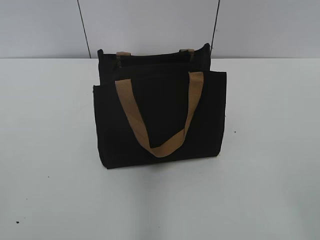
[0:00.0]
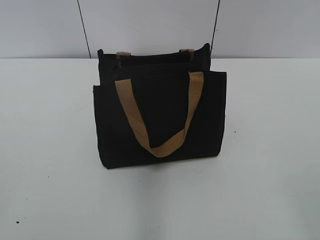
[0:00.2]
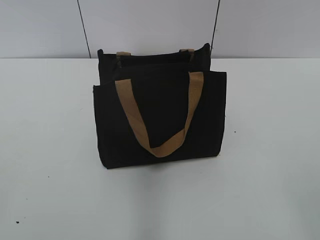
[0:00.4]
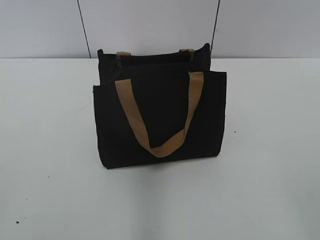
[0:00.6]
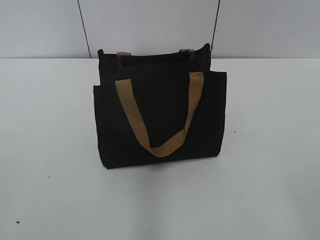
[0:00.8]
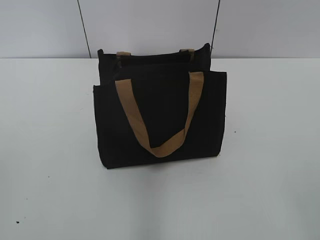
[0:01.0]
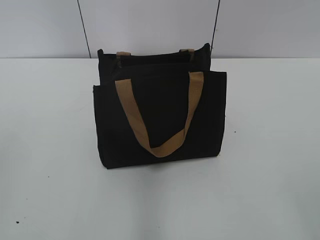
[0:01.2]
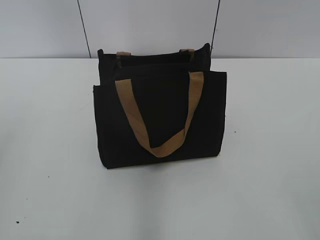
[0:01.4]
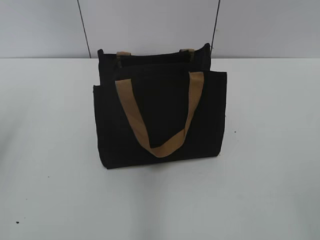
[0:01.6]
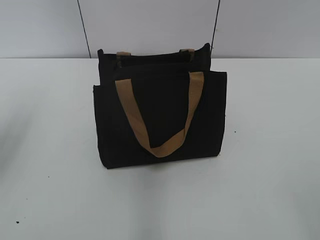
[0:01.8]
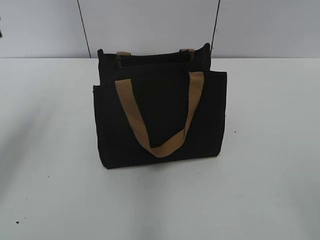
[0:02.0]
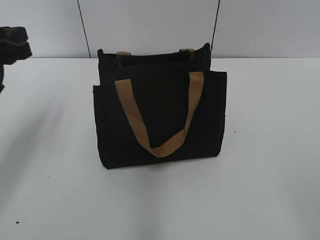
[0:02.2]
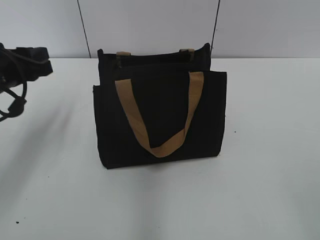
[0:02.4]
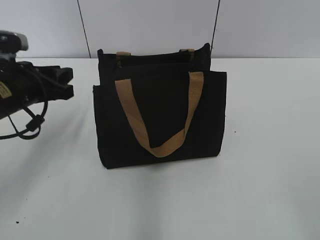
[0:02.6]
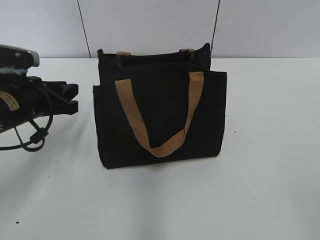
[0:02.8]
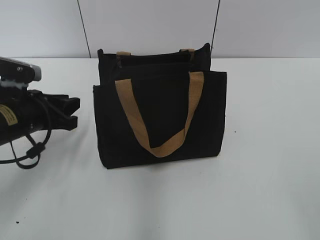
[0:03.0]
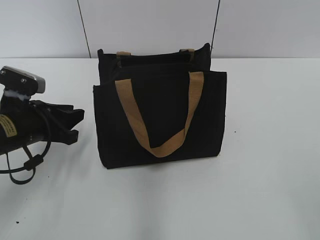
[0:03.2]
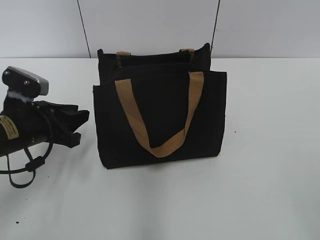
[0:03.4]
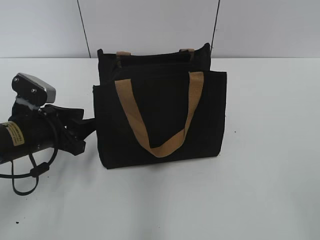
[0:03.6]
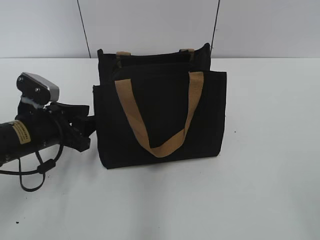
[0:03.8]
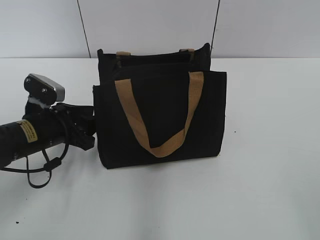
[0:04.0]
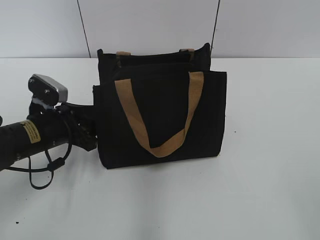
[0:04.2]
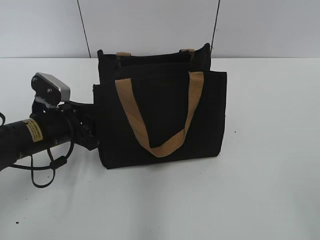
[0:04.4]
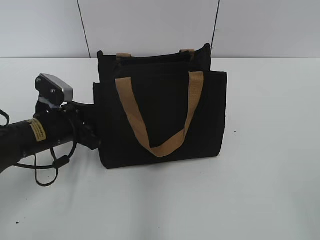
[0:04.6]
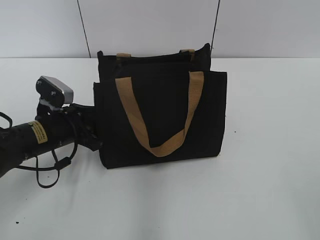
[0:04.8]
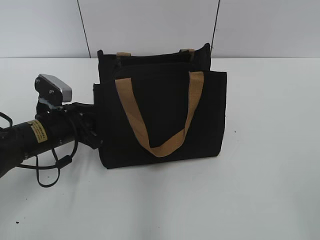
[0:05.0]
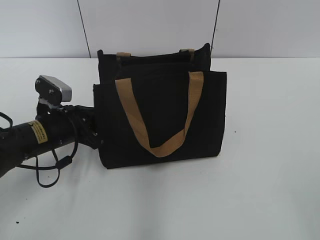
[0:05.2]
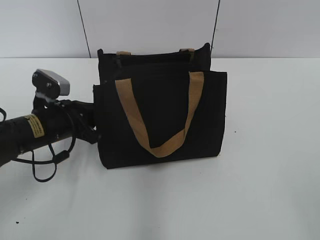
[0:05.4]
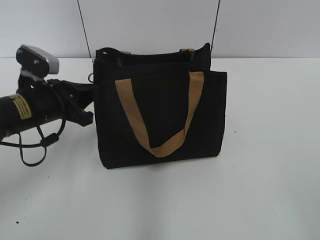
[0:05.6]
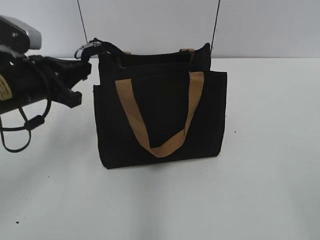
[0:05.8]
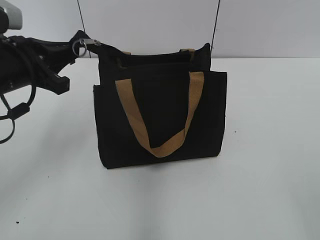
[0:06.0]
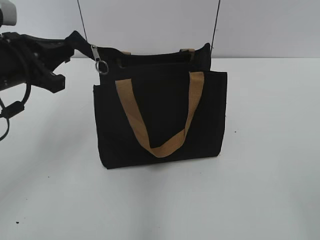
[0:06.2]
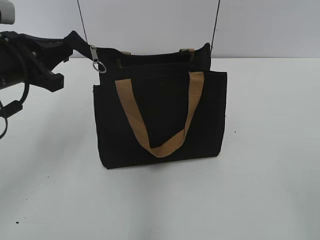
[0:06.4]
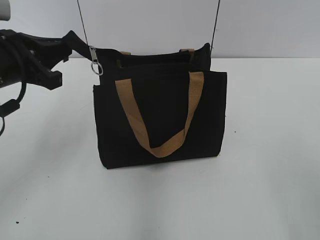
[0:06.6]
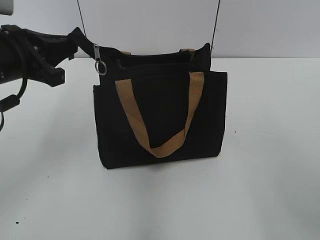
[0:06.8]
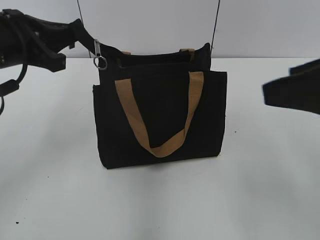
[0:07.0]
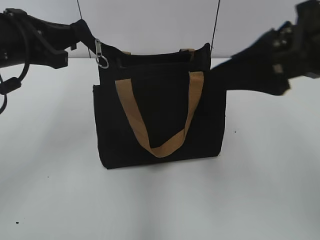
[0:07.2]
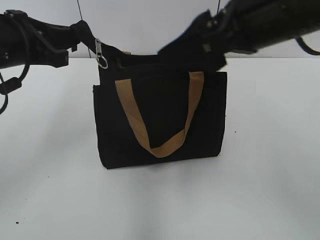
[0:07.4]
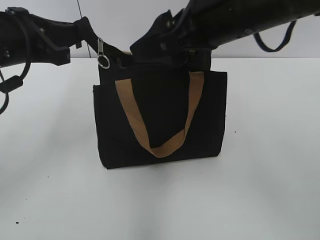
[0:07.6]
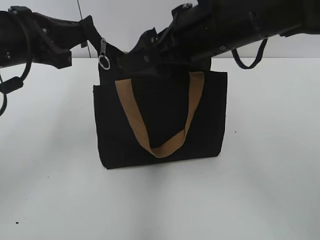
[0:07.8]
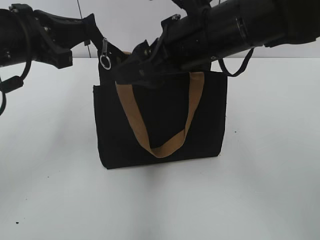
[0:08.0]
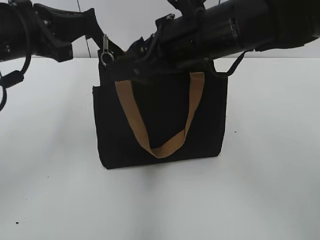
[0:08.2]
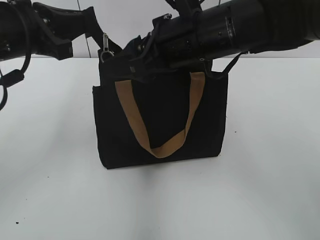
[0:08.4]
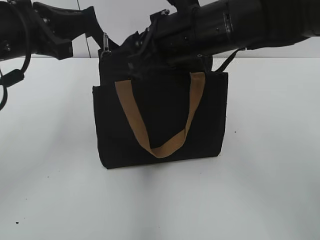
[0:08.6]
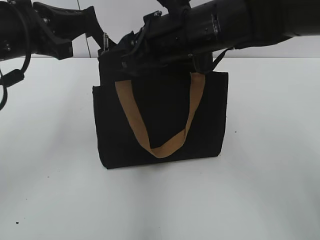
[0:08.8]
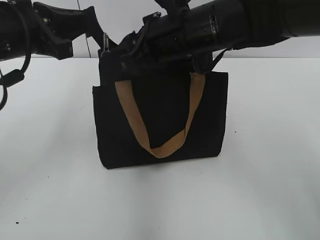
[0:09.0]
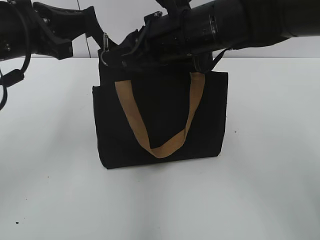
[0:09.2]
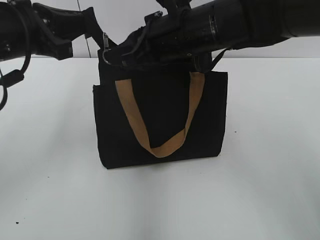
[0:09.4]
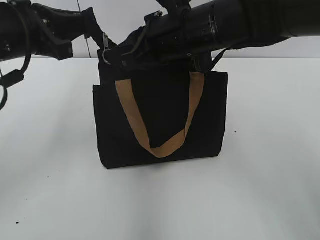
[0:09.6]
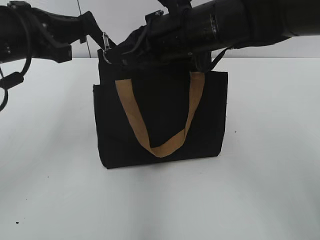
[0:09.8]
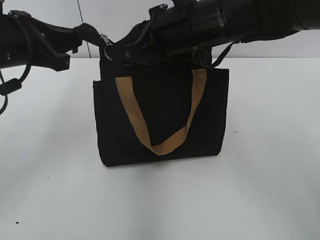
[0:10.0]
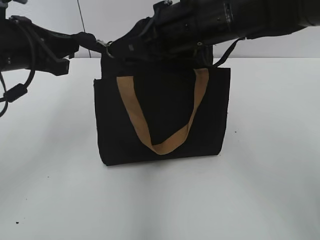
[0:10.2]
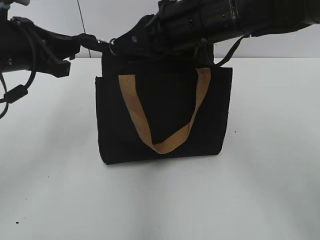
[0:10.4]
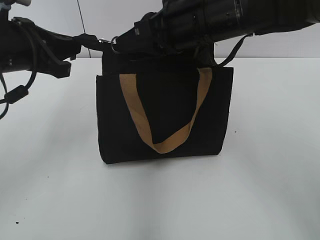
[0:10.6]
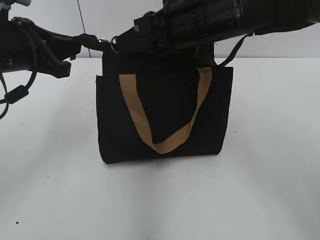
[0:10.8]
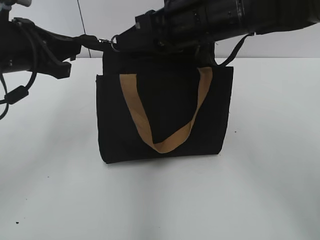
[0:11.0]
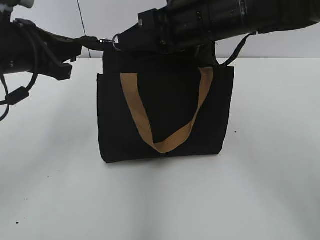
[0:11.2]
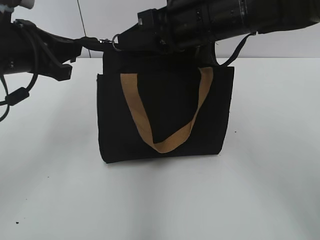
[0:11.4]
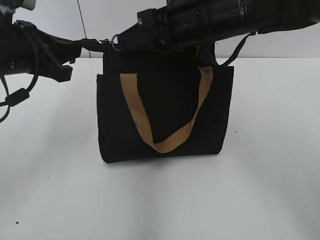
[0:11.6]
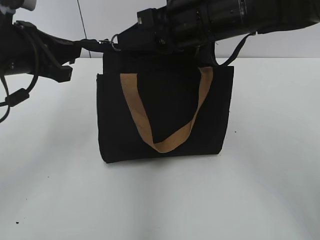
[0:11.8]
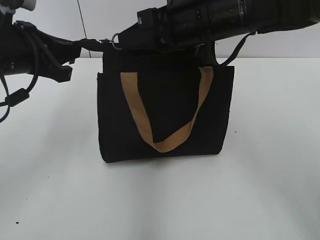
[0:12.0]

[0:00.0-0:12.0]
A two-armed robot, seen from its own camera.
0:01.6 to 0:03.0: The left gripper travels downward, forward and to the right by about 25 cm.
0:03.0 to 0:04.4: The grippers stay close to where they were, moving slightly.
0:04.4 to 0:06.0: The left gripper heads upward, covering about 15 cm, and closes its fingers.
0:06.0 to 0:07.6: The right gripper goes some 35 cm forward and to the left.
0:07.6 to 0:09.0: The right gripper shifts approximately 10 cm downward and forward, and closes its fingers.
0:09.0 to 0:10.4: The right gripper closes its fingers.
0:10.4 to 0:12.0: The grippers move only a little.

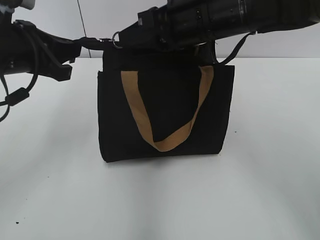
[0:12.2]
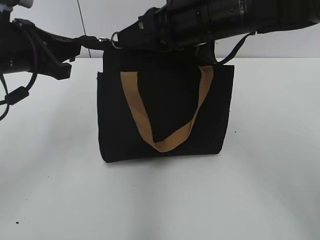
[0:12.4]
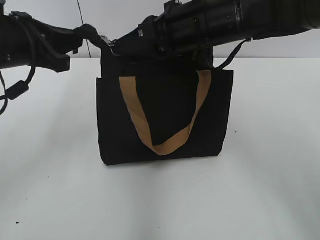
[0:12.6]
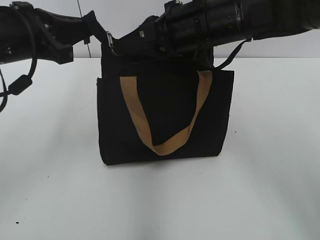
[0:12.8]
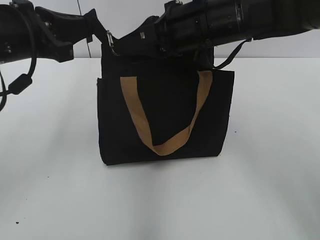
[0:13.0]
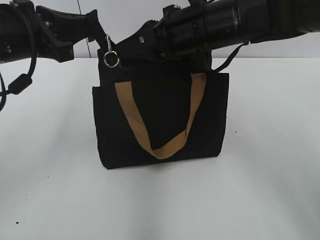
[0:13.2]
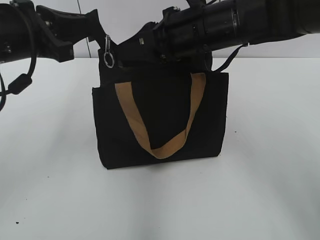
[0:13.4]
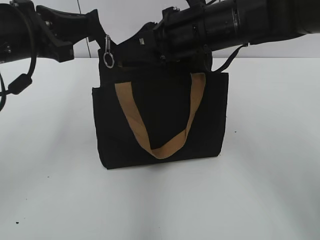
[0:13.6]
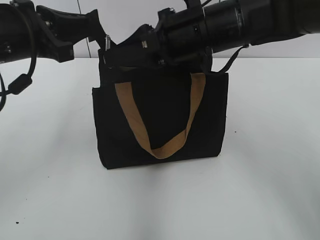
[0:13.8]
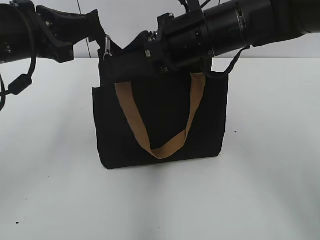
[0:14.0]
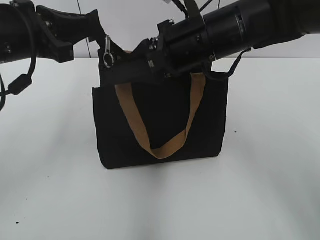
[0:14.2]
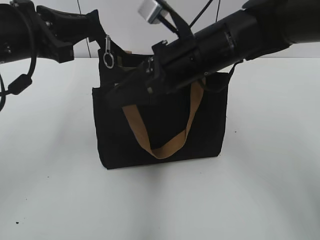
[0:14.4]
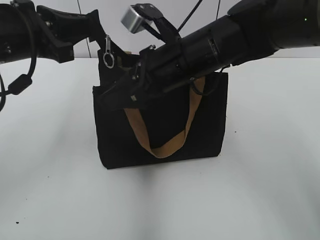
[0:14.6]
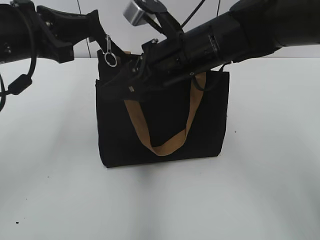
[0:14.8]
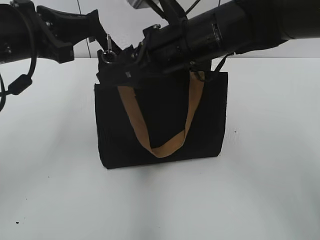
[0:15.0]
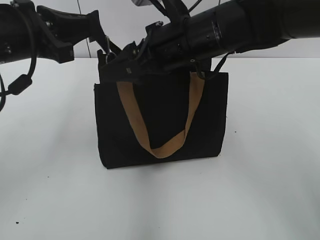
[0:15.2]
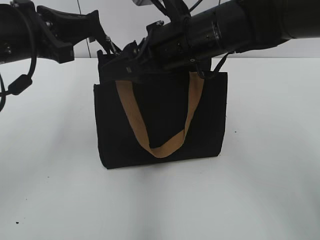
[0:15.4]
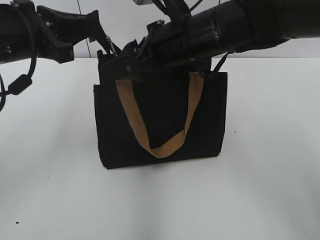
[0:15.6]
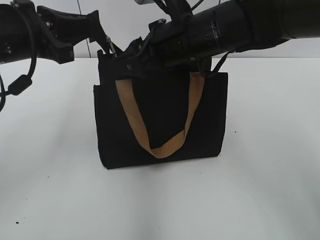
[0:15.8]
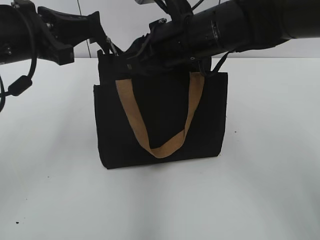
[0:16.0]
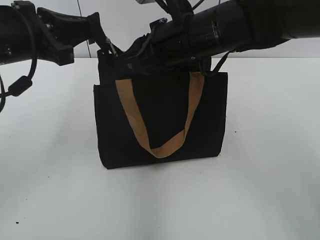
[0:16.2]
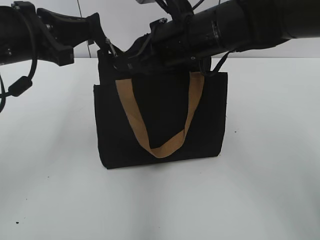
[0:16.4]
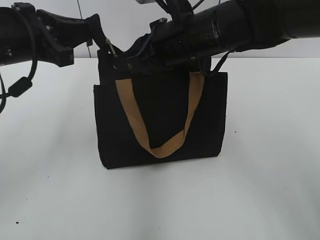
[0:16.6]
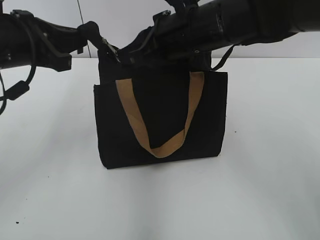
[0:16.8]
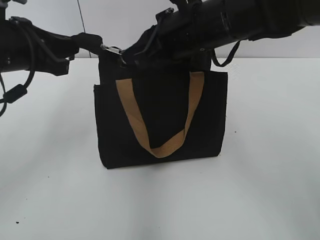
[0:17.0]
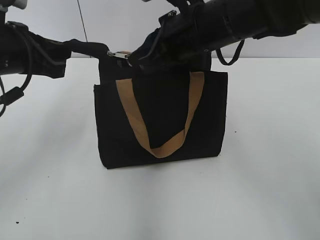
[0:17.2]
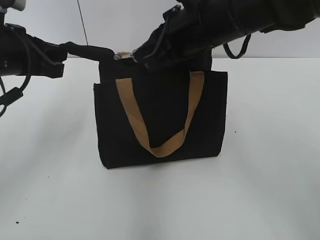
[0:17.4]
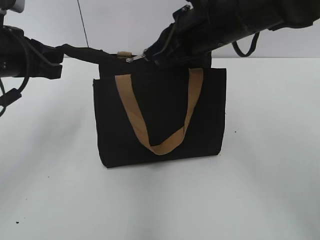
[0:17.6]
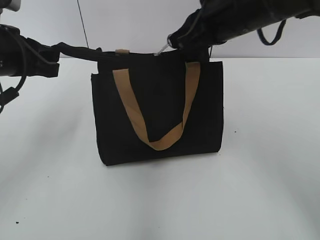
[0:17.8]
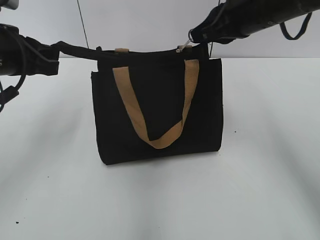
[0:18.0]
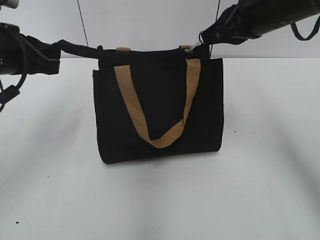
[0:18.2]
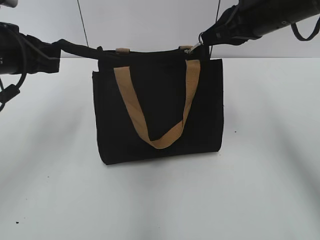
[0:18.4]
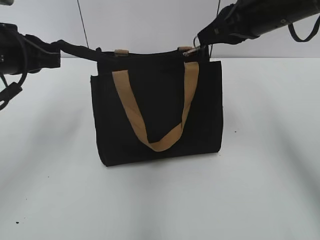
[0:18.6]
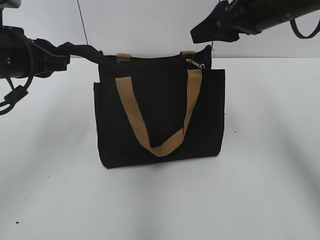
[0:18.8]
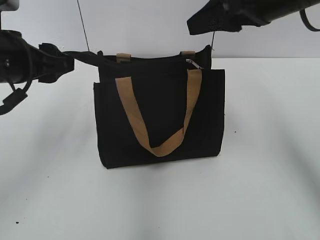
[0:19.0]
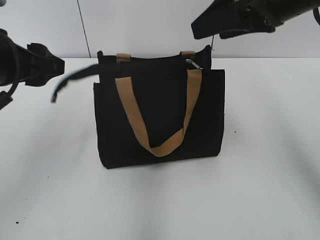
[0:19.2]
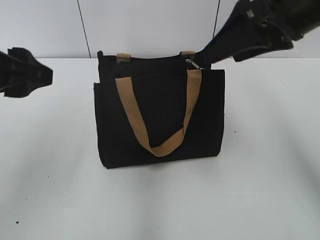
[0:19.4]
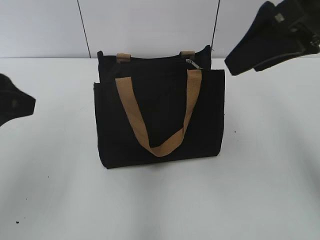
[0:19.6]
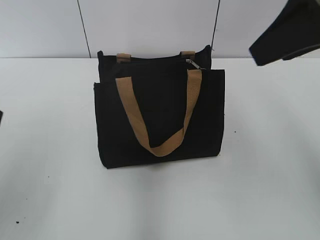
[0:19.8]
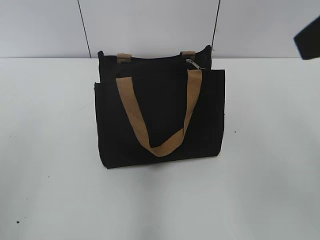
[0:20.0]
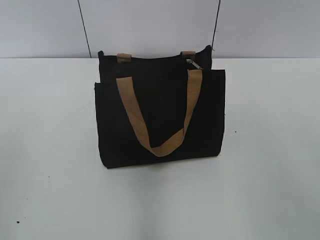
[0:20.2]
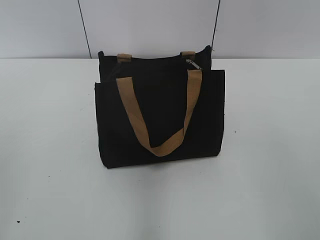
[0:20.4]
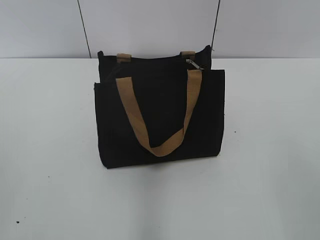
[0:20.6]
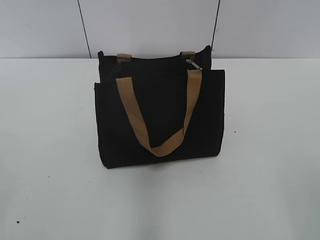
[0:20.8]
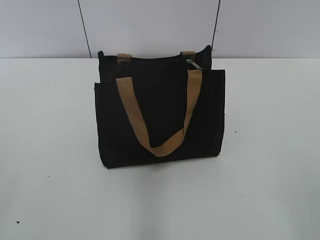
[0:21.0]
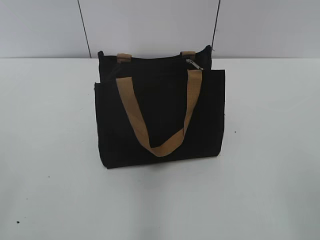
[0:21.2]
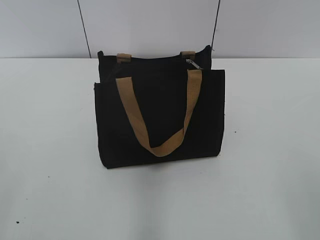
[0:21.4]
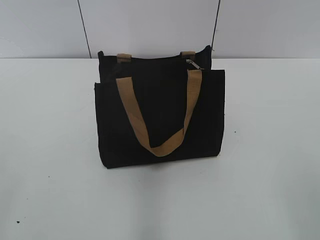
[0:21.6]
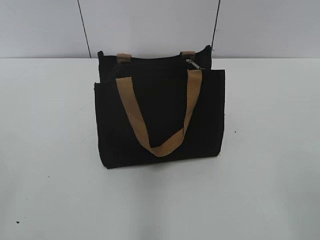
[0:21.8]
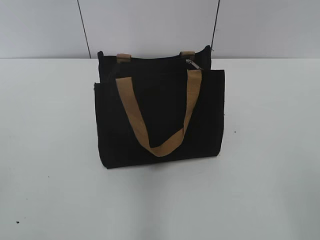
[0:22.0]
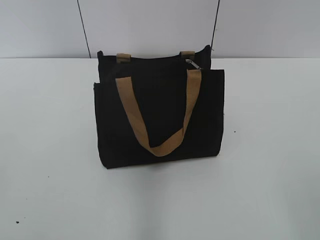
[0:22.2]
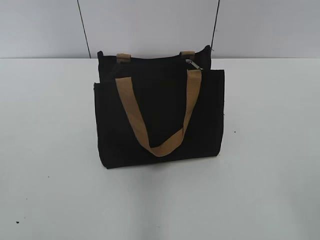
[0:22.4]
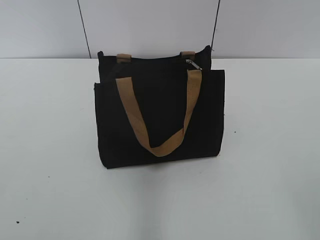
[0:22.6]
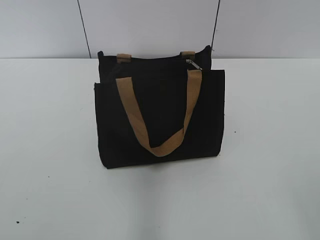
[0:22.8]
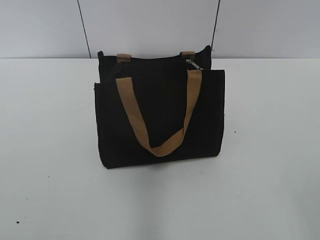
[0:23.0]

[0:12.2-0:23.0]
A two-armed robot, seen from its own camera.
Step, 0:12.2 to 0:18.6: Zip up the bag with your right hand.
Step, 0:18.8 to 0:19.2: Grab the zipper with your left hand.
0:12.2 to 0:13.8: The grippers move only a little.
0:13.8 to 0:15.2: The right gripper opens up.
0:15.2 to 0:16.8: The right gripper closes its fingers.
0:16.8 to 0:18.4: The right gripper moves to the right, some 10 cm.
0:18.4 to 0:20.0: The right gripper shifts approximately 20 cm backward and upward, and opens up. Meanwhile the left gripper moves backward, about 20 cm, and opens.
0:20.0 to 0:21.4: The right gripper moves backward and downward, approximately 20 cm.
